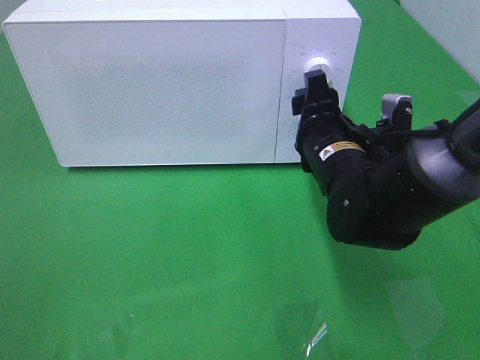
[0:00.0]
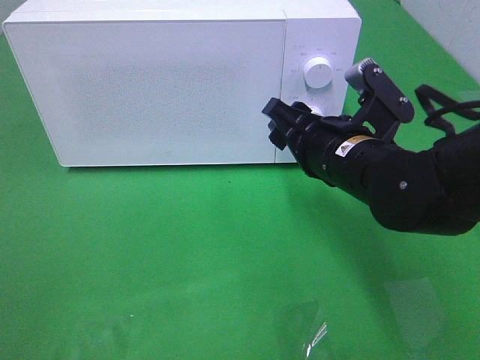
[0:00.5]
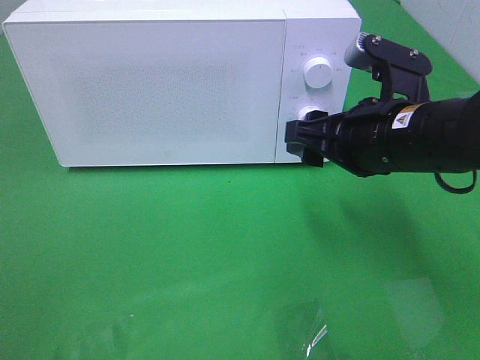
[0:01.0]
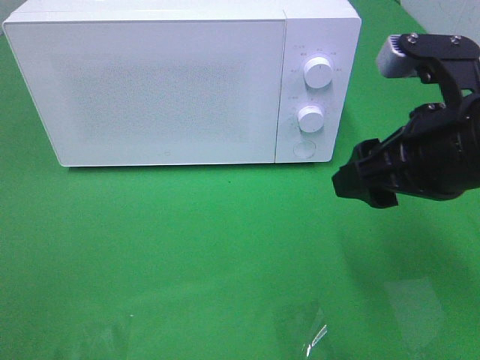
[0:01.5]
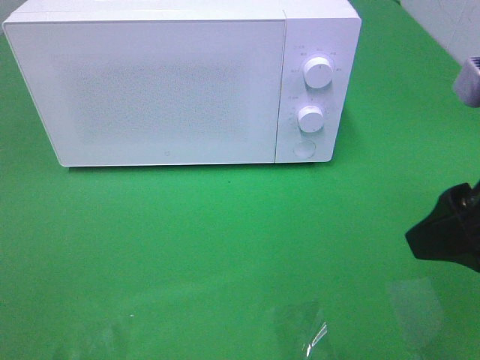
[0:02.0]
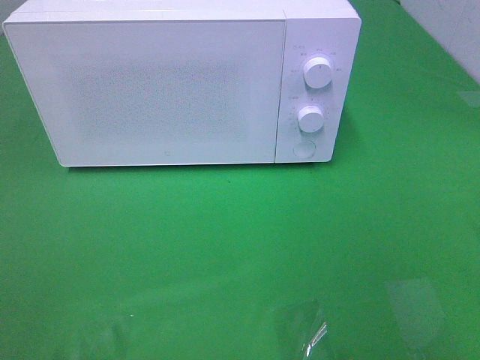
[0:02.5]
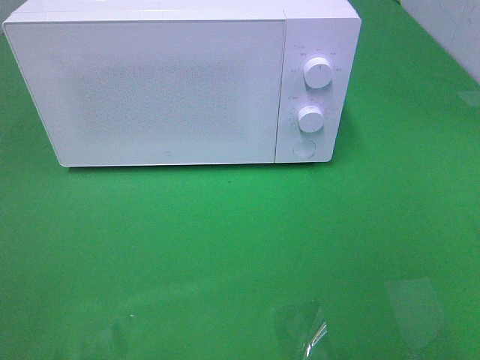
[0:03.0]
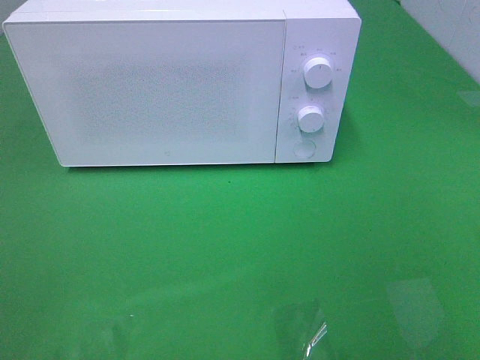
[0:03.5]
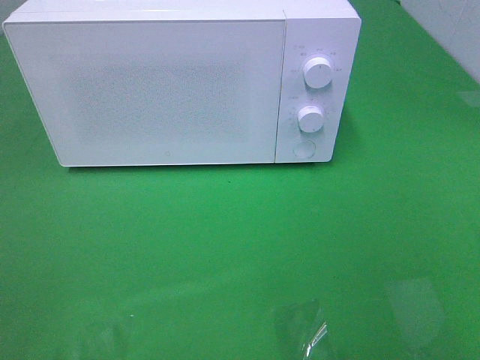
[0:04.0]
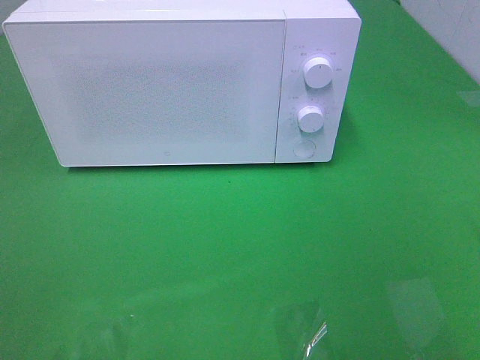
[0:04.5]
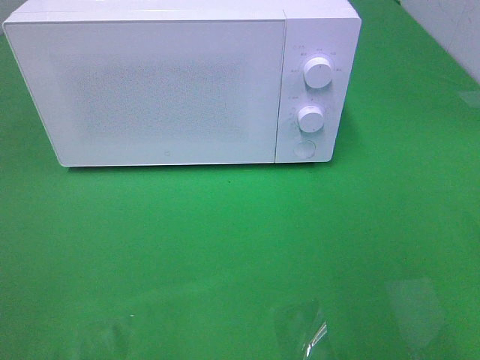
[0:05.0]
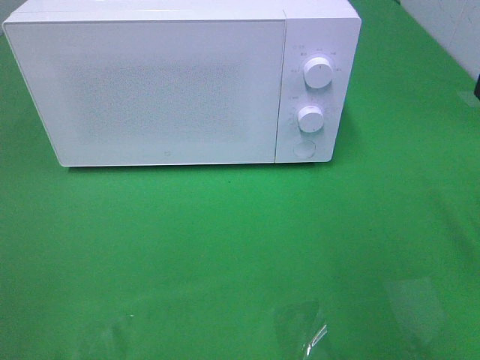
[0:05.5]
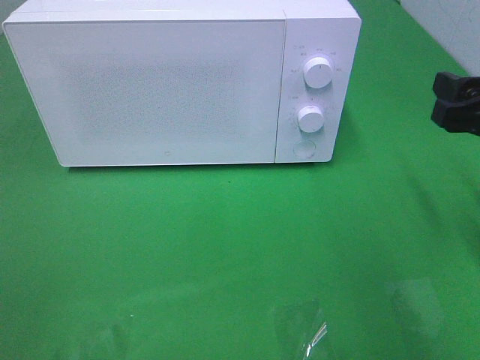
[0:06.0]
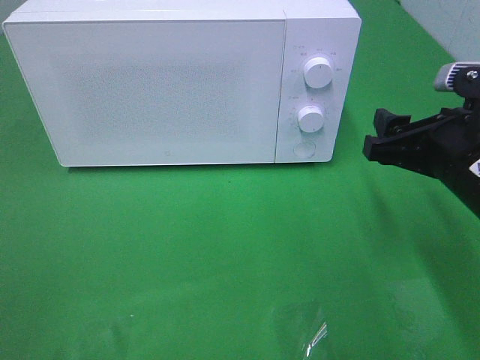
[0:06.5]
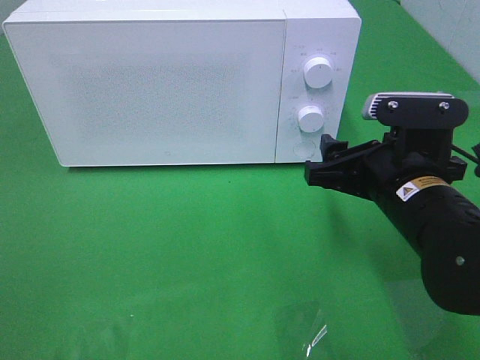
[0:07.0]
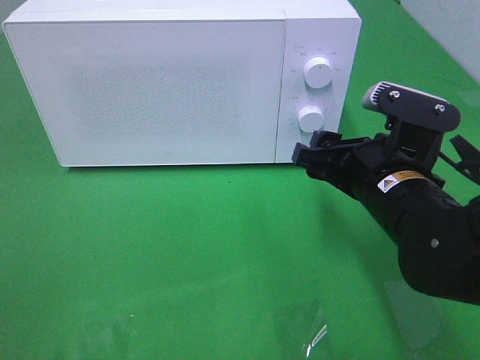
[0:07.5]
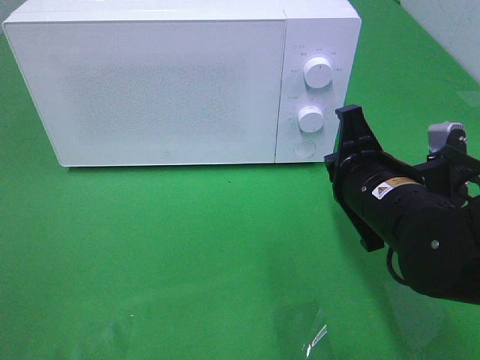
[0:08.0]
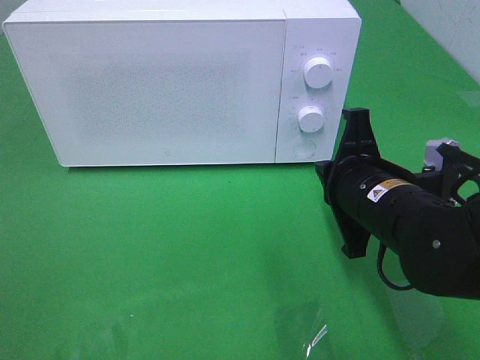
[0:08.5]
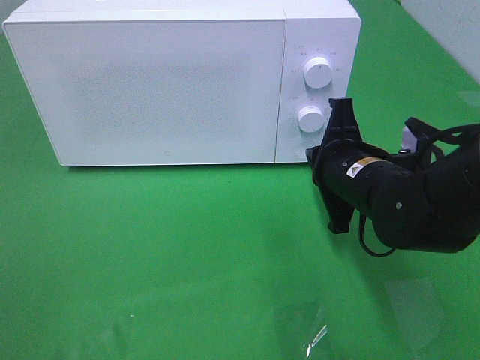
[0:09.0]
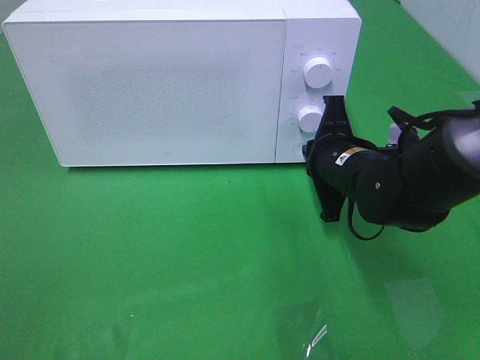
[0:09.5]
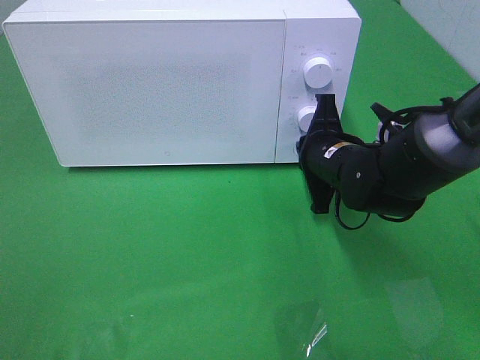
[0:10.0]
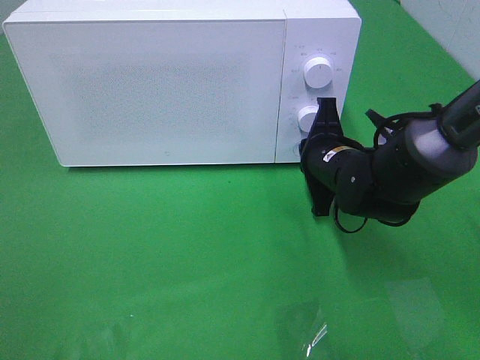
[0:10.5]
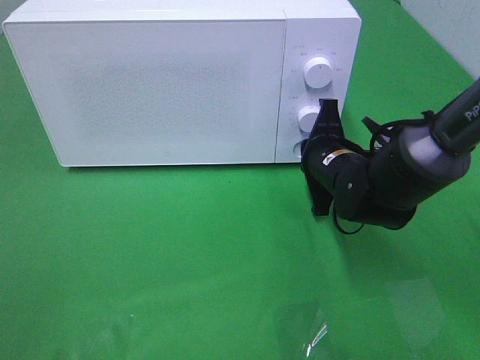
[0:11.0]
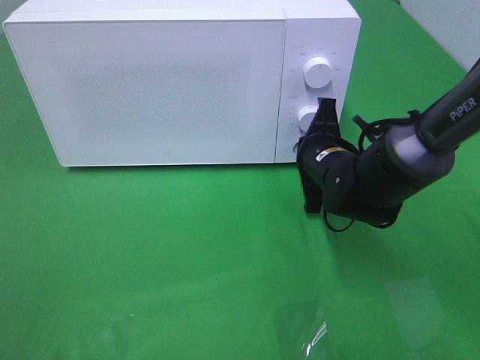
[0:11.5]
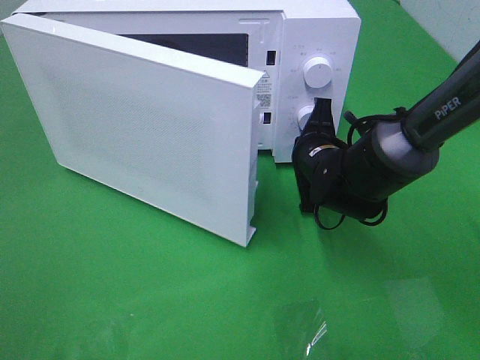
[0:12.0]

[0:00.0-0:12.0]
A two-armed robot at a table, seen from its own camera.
Task of the whole recording: Heat the burger.
0:00.0 to 0:02.0: The right gripper shifts roughly 25 cm backward, upward and to the right.
0:02.0 to 0:04.0: The right gripper is displaced backward and to the right by approximately 15 cm.
0:04.0 to 0:06.0: The right gripper goes roughly 25 cm forward.
0:06.0 to 0:08.0: The right gripper travels to the left and downward by about 15 cm, and closes.
0:08.0 to 0:10.0: The right gripper shifts roughly 10 cm forward.

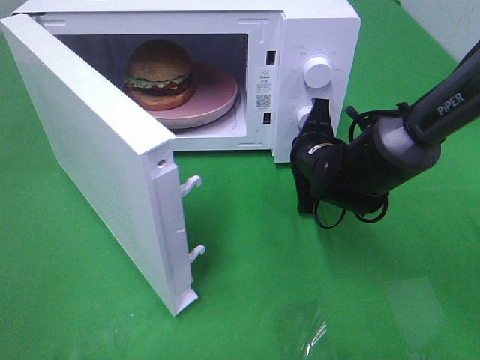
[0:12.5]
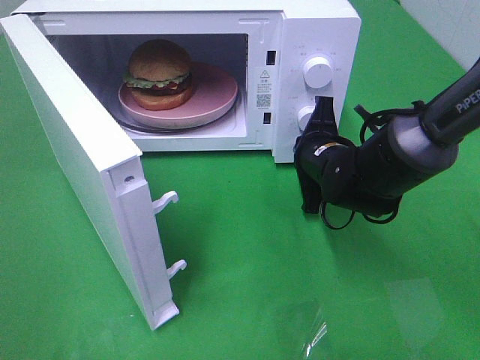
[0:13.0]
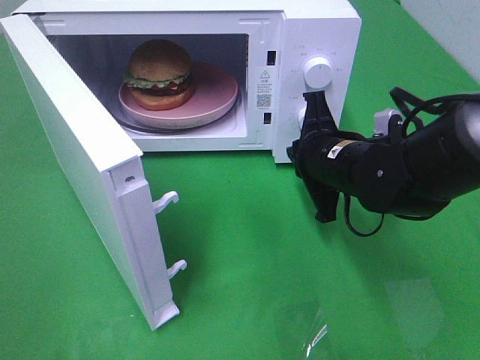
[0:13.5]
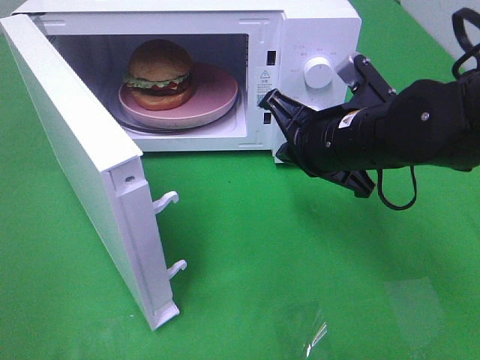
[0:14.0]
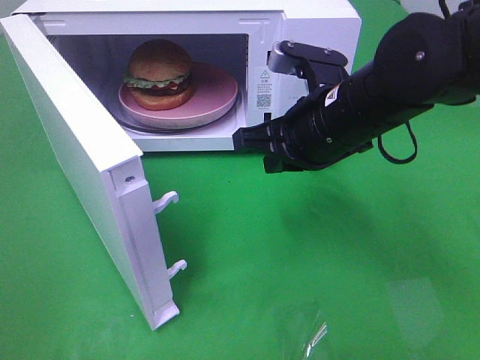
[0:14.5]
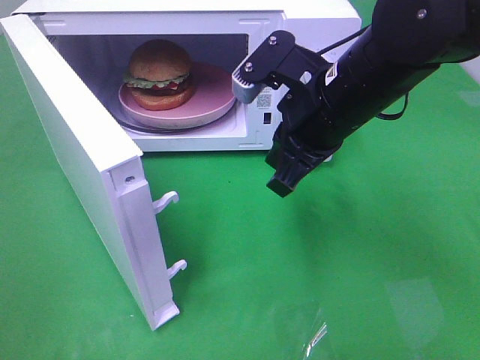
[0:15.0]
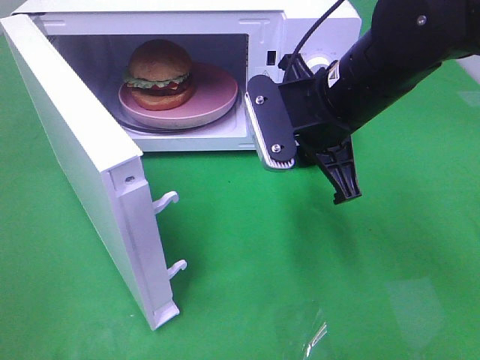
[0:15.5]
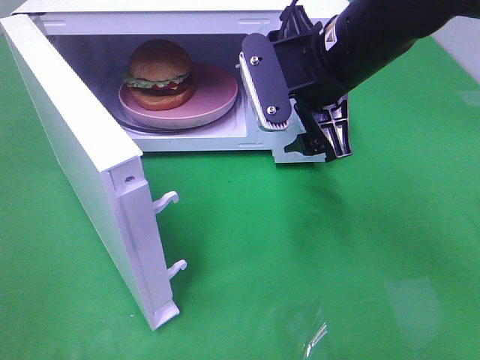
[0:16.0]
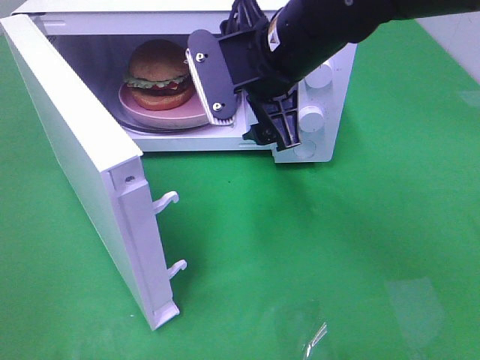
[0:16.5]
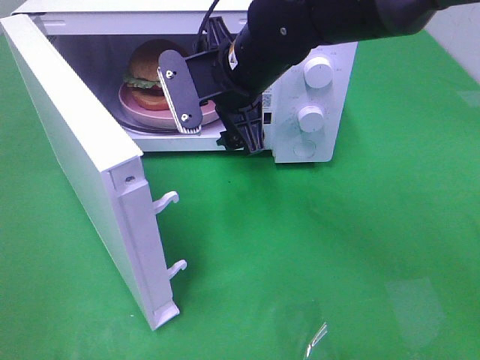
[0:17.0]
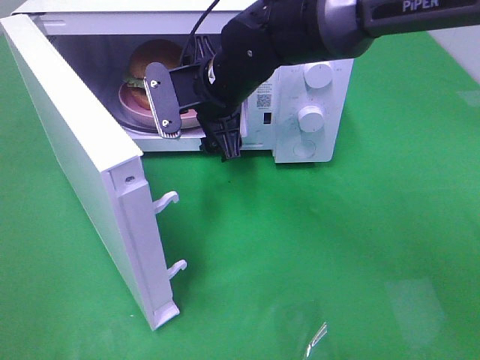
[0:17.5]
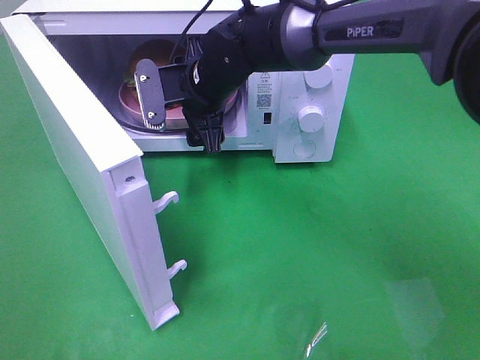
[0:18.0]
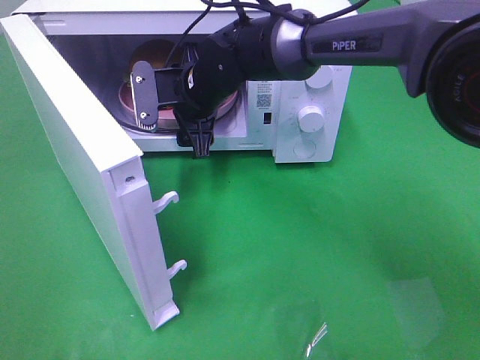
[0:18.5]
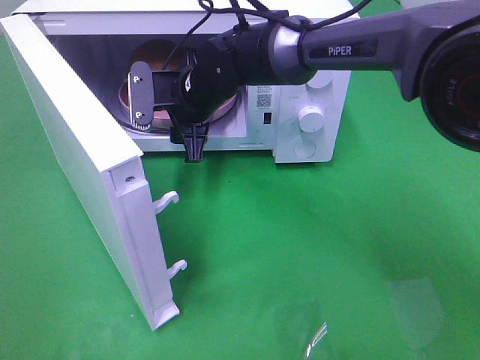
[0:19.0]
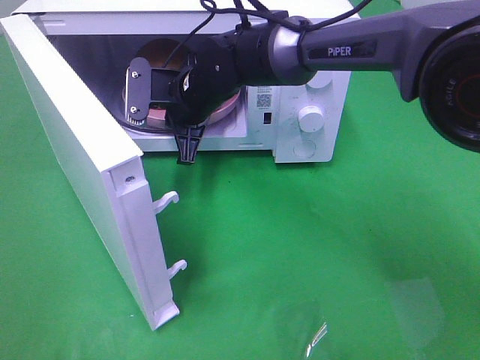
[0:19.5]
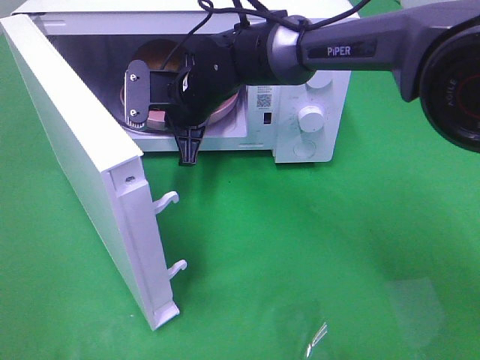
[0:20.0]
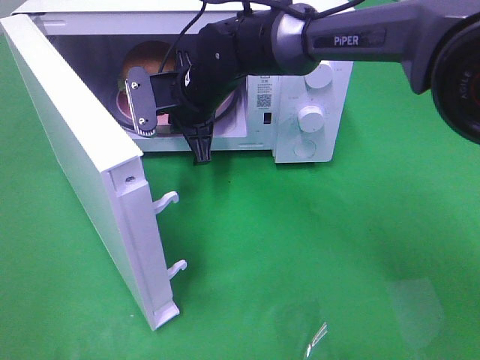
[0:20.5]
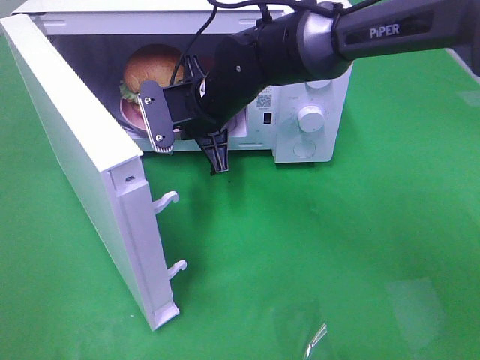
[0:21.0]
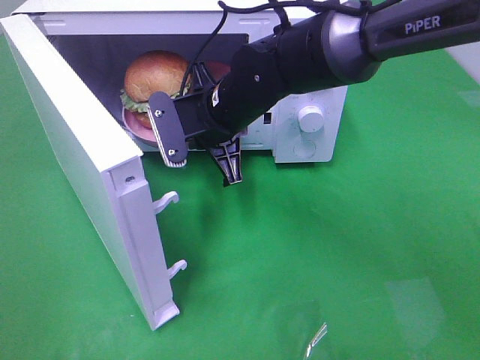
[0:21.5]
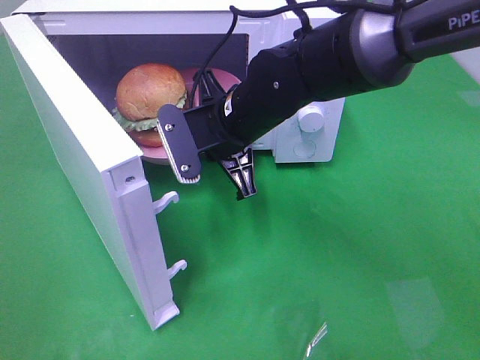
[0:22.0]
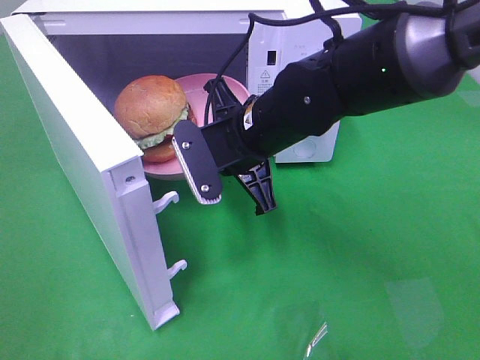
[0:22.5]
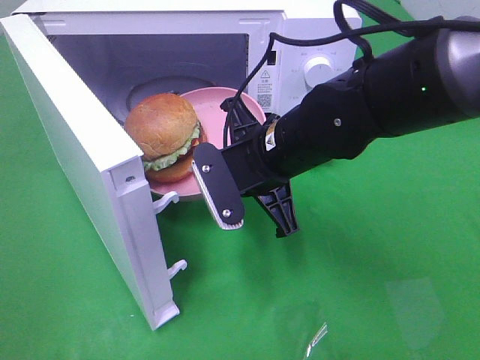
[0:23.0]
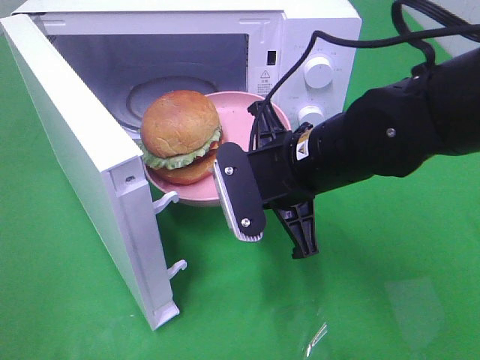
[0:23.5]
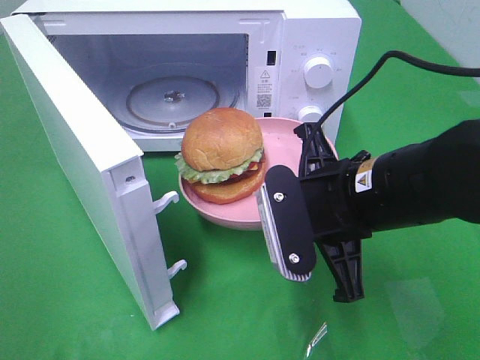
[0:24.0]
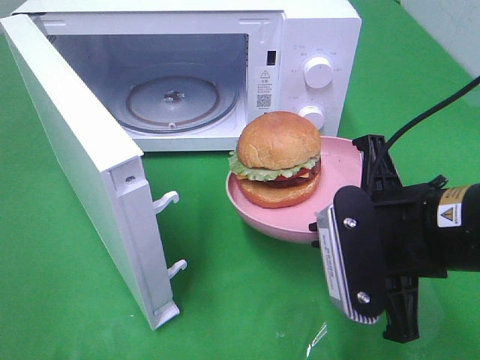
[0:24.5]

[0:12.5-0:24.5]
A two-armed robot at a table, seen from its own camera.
Task of the whole recording: Heat the burger.
Step, 0:13.5 to 0:19.5: Right hand: grab the plate with the hamburger.
0:12.5 to 0:14.5: The right gripper is displaced upward and backward by roughly 15 cm.
0:14.5 to 0:16.5: The right gripper moves to the left, about 5 cm, and opens its fingers.
0:16.5 to 0:18.5: The right gripper is displaced forward, downward and to the left by some 15 cm.
0:18.5 to 0:20.5: The right gripper closes.
0:20.5 to 0:22.5: The right gripper is displaced backward and to the right by approximately 10 cm.
0:22.5 to 0:24.5: The right gripper goes some 20 cm backward and to the right.

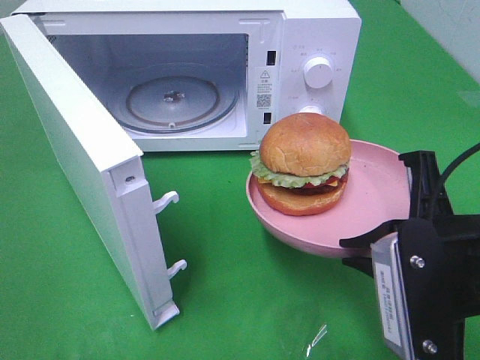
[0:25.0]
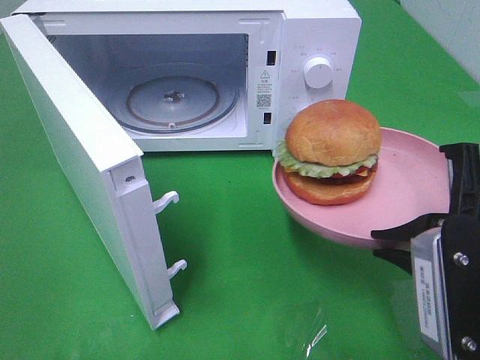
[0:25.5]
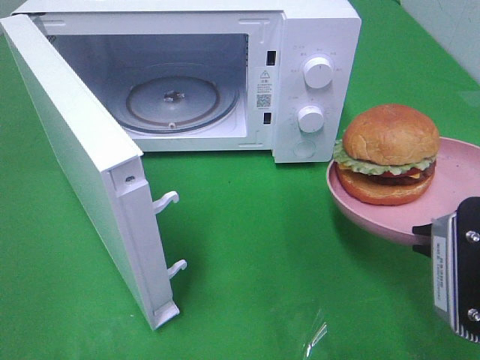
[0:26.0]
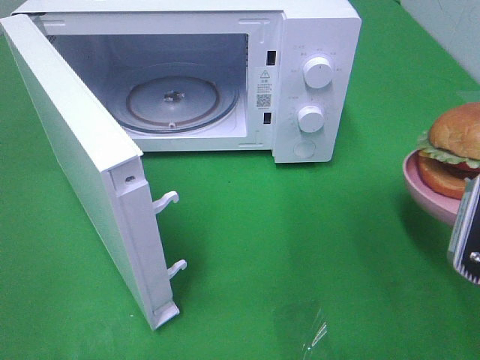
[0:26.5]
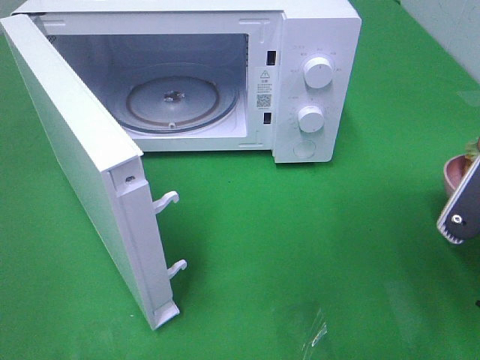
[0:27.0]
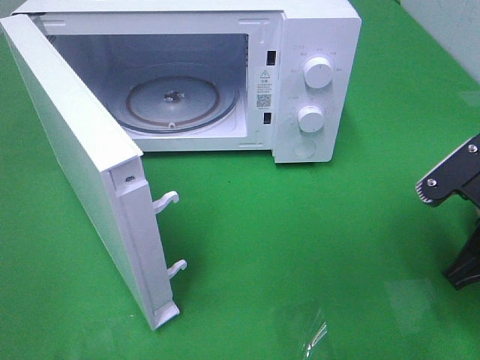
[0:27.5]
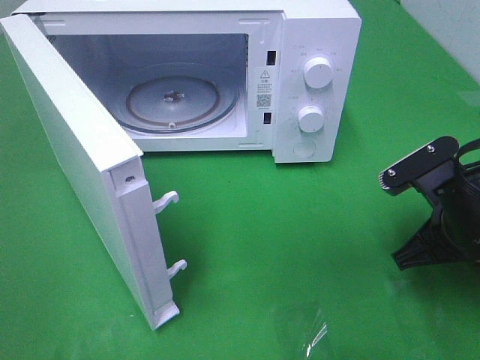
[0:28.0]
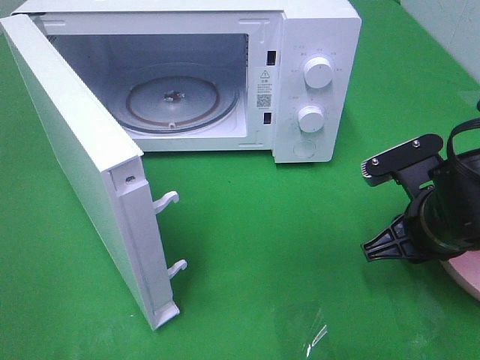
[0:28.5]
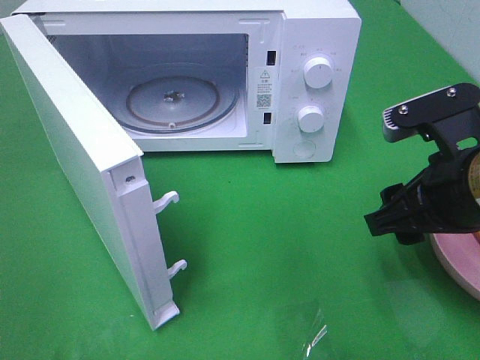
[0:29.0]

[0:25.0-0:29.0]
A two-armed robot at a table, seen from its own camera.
Task of the whole recording: Heat the burger.
Step, 0:25.0 to 0:28.5: Right hand: place the plate on the table.
0:25.0 to 0:27.0: The right gripper heads to the right, covering about 5 cm.
0:27.0 to 0:29.0: The right gripper shifts about 5 cm to the left, moves roughly 5 cm downward and comes back, and opens up.
